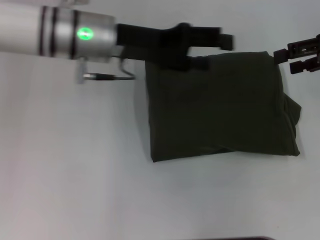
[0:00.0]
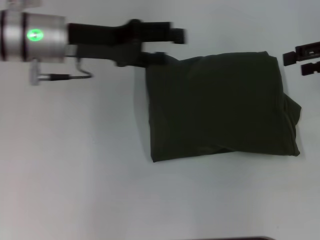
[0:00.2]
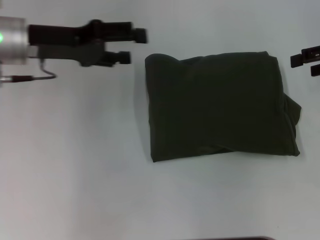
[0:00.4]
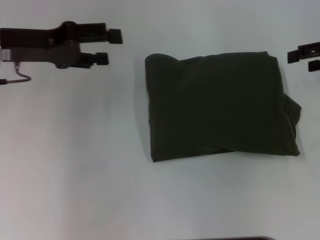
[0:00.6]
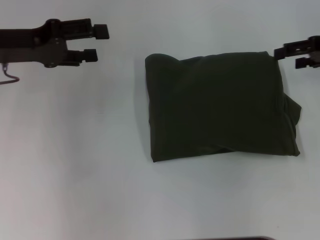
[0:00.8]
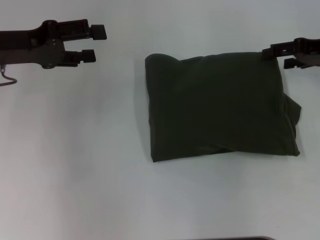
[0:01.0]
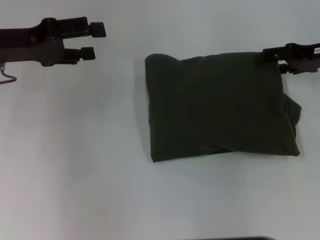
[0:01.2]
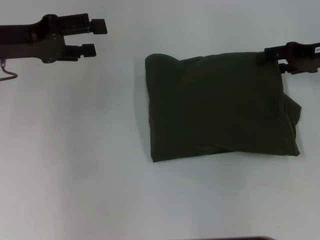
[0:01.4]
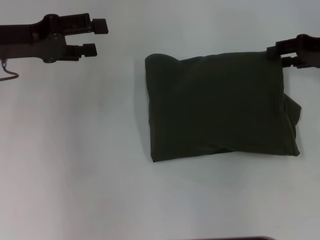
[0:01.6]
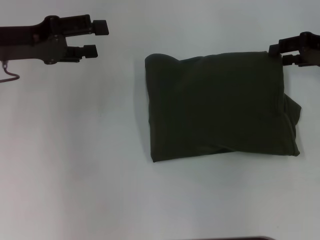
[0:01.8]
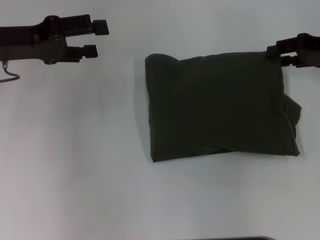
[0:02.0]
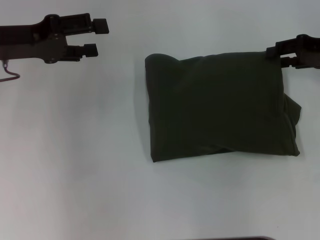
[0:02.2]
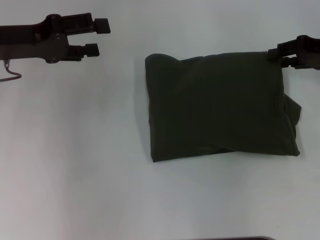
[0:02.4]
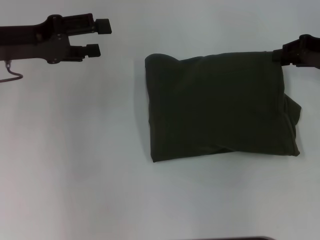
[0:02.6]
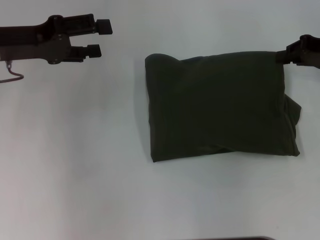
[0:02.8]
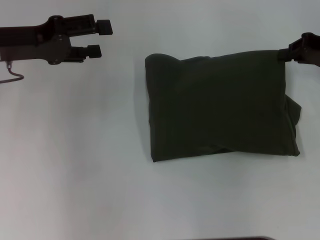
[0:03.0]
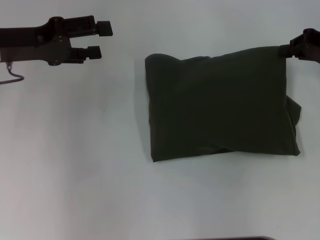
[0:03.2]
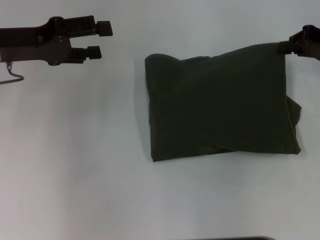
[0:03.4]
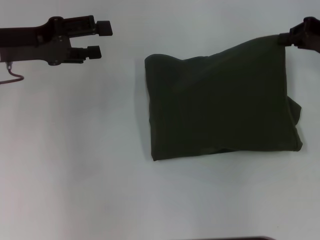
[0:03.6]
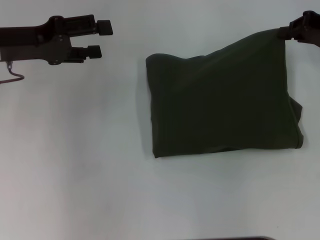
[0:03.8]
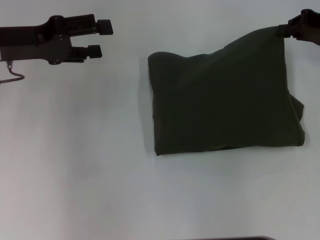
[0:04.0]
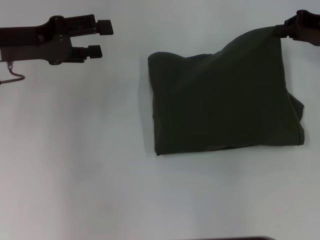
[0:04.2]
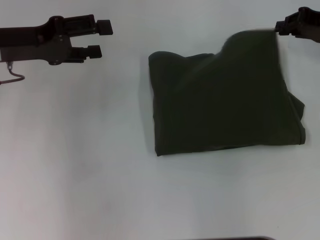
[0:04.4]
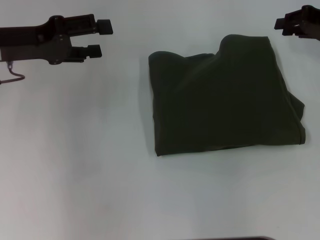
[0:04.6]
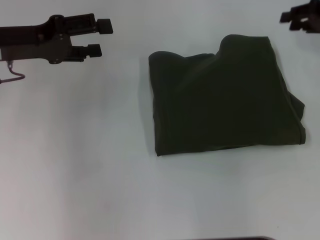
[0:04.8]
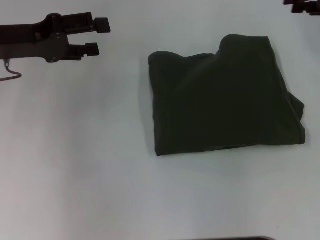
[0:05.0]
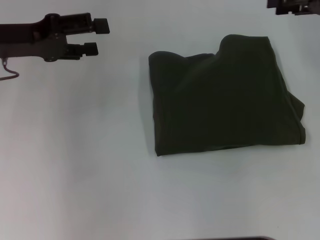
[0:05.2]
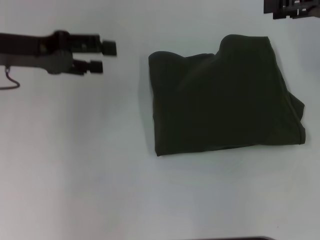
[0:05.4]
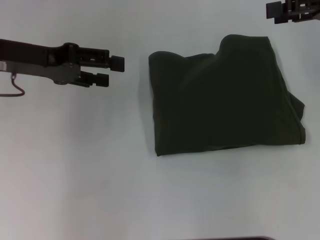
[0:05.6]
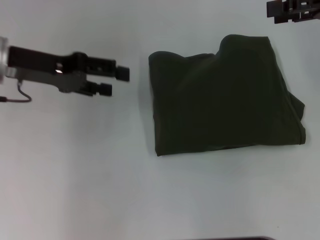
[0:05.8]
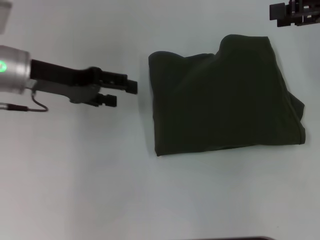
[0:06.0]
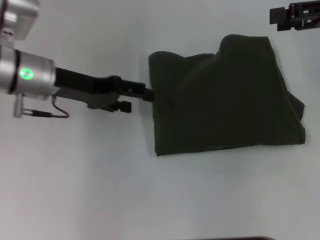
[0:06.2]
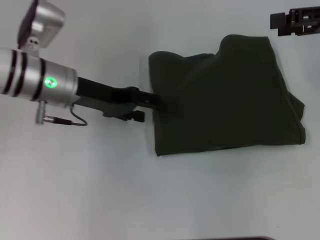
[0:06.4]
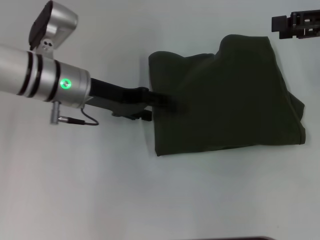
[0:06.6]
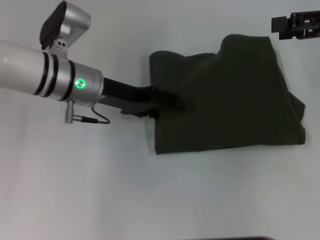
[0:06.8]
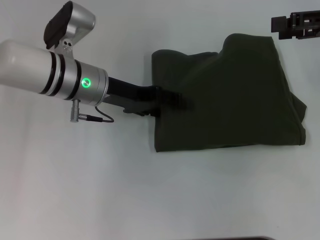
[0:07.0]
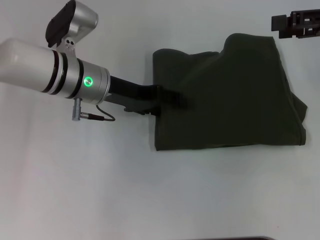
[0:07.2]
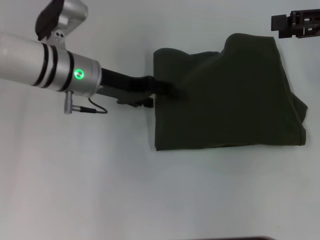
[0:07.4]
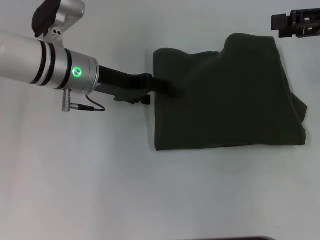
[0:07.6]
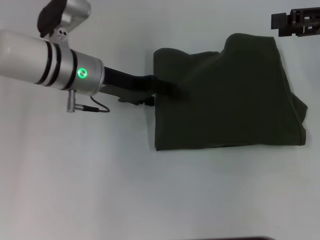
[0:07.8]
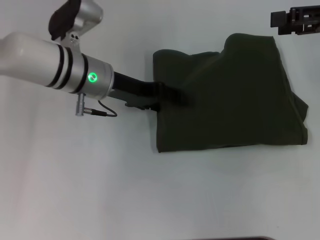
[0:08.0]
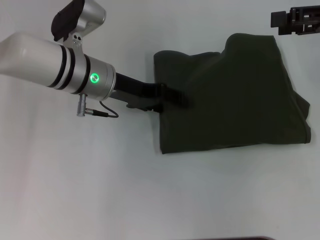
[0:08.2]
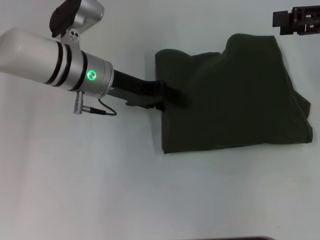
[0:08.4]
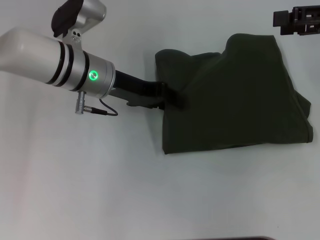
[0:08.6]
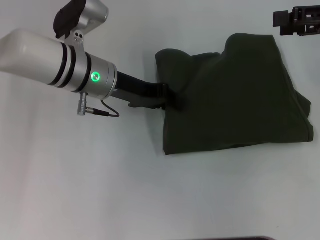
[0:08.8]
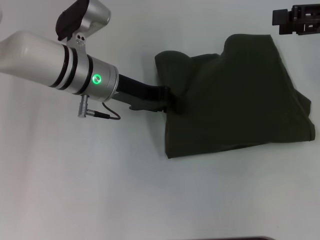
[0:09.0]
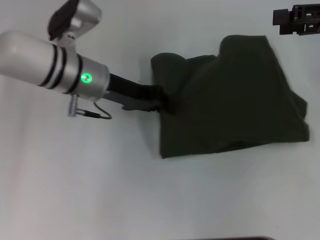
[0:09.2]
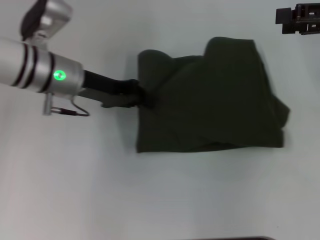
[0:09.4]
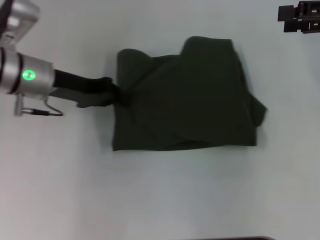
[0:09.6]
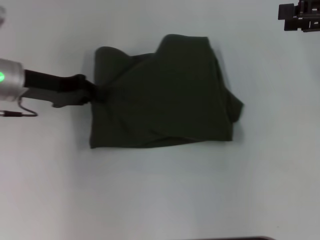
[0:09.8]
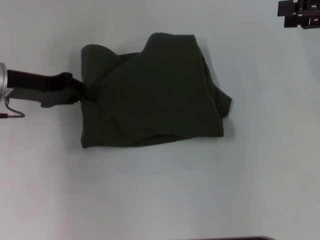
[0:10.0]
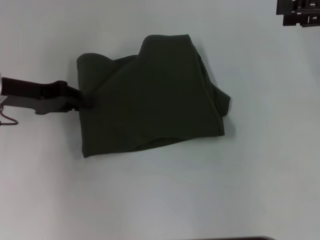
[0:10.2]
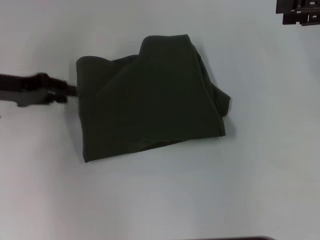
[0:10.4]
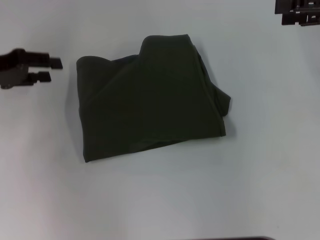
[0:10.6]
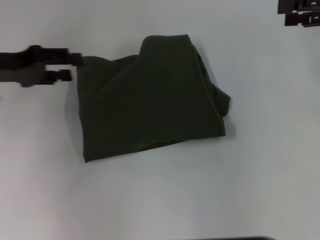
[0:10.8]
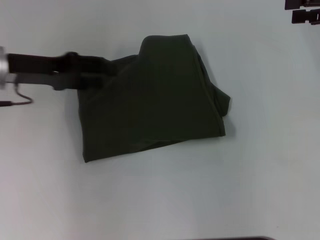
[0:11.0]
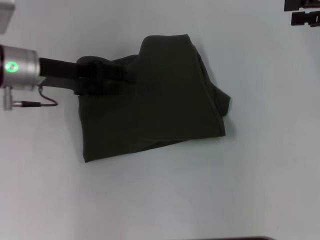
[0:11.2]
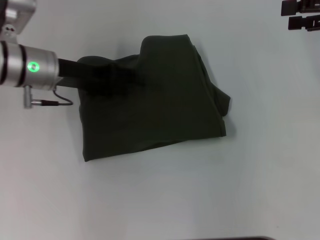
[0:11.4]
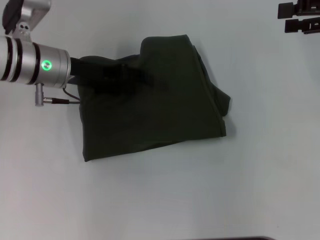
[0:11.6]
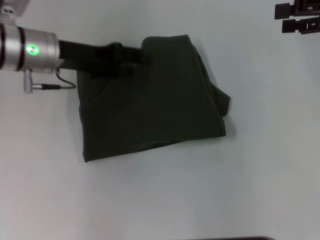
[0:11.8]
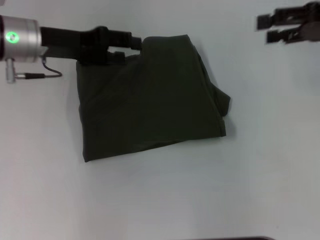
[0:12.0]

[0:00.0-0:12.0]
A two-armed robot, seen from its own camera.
0:00.0 to 0:01.6: The right gripper is displaced downward by approximately 5 cm. Meanwhile the left gripper shifts roughly 15 cm to the left.
0:01.6 to 0:03.0: The right gripper closes its fingers.
0:03.0 to 0:04.4: The grippers move only a little.
0:04.4 to 0:06.0: The right gripper heads upward, covering some 10 cm, and opens up.
0:06.0 to 0:07.6: The left gripper shifts approximately 10 cm to the right.
0:07.6 to 0:09.0: The left gripper closes its fingers.
0:09.0 to 0:10.4: The left gripper moves to the left, roughly 20 cm.
0:10.4 to 0:12.0: The left gripper shifts approximately 10 cm to the right, and opens.

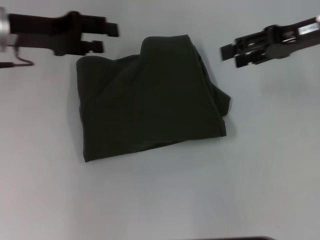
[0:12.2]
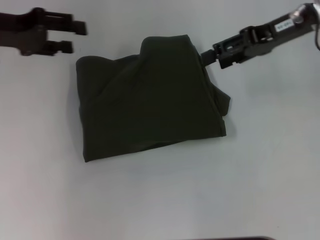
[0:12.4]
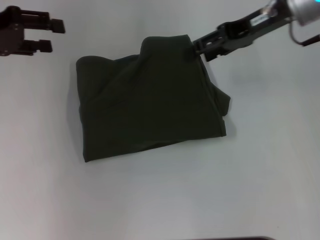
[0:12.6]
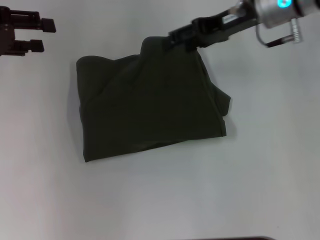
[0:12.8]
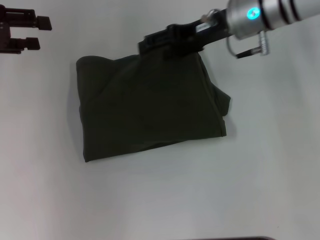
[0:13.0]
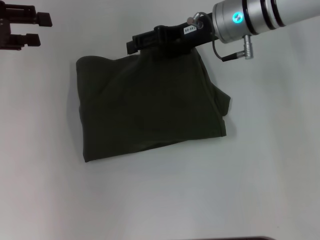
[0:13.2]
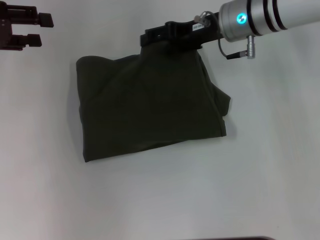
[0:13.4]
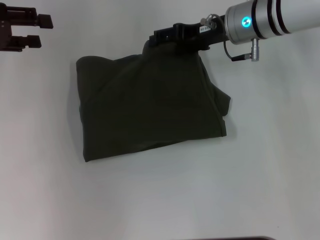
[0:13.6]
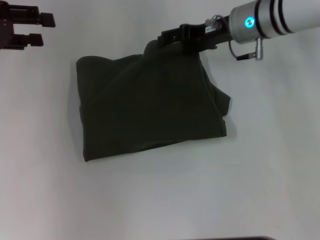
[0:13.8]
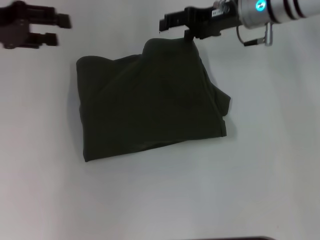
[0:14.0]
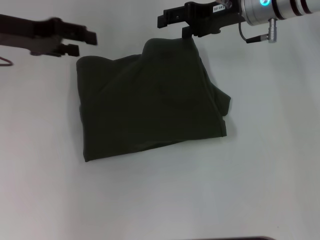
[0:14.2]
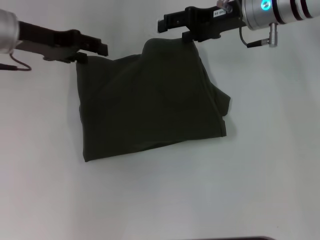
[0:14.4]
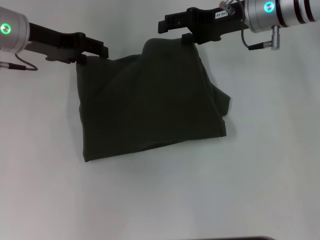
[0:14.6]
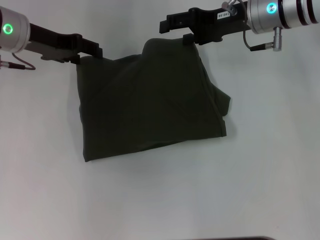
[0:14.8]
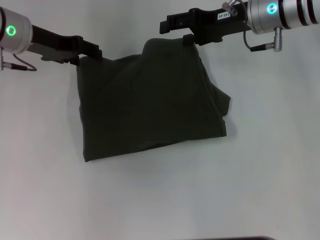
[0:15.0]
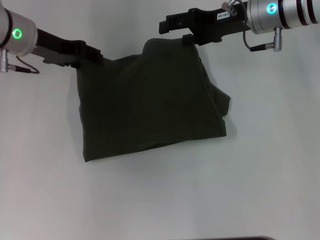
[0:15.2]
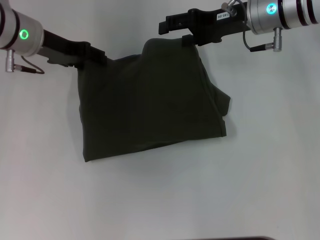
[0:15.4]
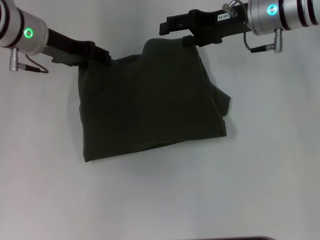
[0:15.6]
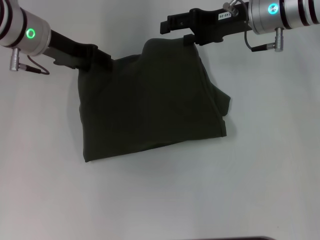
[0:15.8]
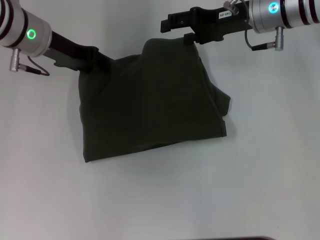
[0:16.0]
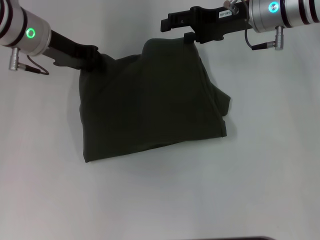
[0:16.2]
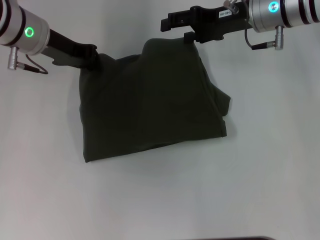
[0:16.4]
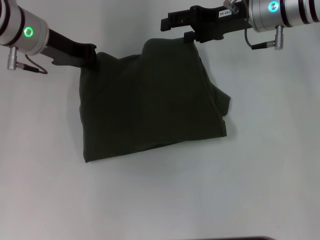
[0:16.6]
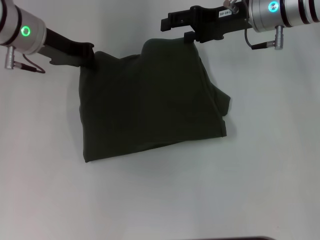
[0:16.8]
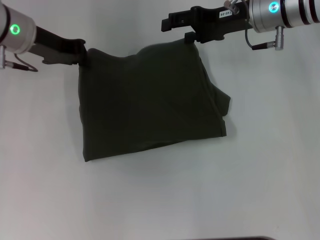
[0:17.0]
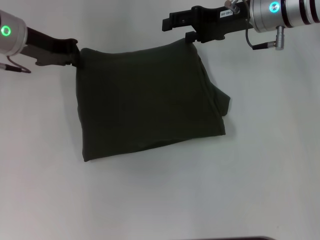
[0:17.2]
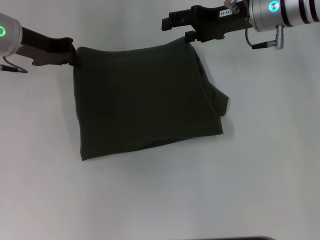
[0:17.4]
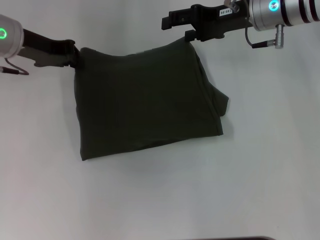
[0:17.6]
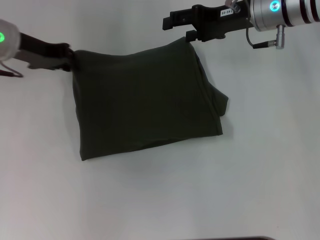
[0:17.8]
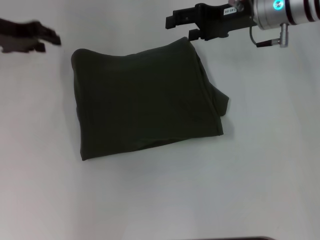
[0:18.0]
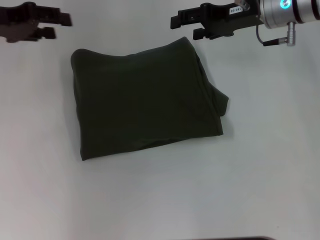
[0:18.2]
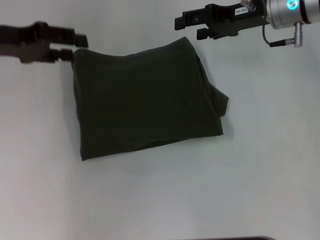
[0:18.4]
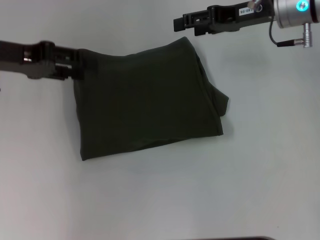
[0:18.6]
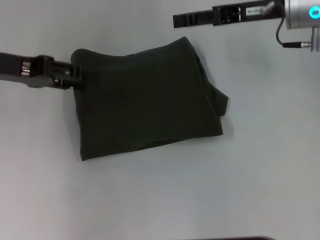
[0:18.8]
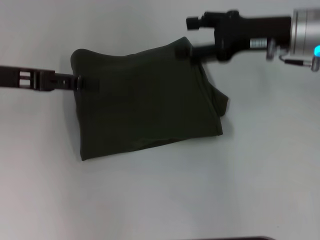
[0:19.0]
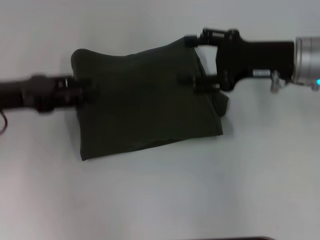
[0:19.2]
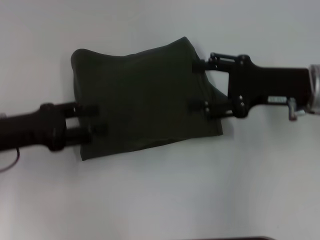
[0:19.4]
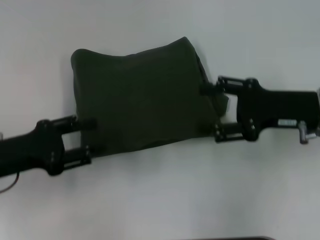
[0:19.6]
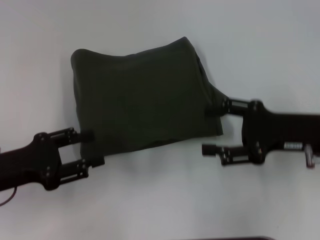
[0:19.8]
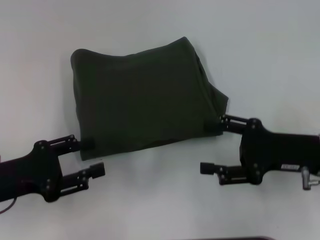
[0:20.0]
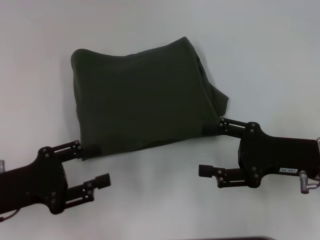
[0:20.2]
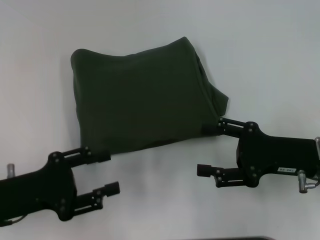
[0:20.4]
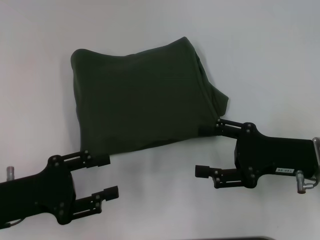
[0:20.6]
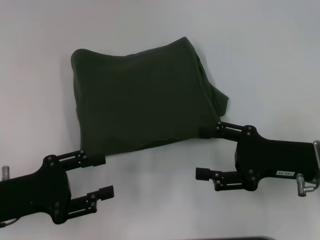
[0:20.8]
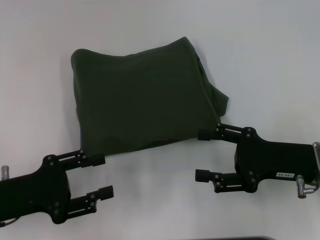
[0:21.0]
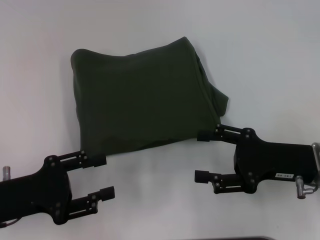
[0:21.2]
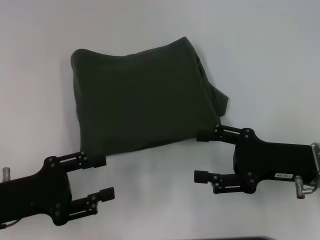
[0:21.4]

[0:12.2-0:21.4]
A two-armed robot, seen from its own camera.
0:12.2 to 0:13.8: The left gripper goes some 10 cm to the left. The right gripper shifts roughly 15 cm to the left, downward and forward.
0:13.8 to 0:15.2: The left gripper moves to the right and downward, approximately 10 cm.
0:15.2 to 0:16.8: The left gripper closes up.
0:16.8 to 0:18.4: The left gripper travels to the left by some 10 cm, and opens.
0:18.4 to 0:19.8: Both grippers travel together backward and downward, some 20 cm.
